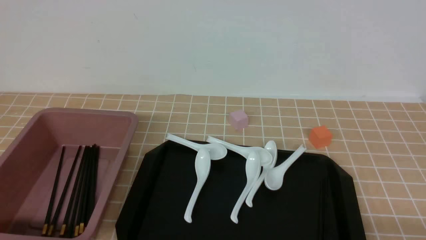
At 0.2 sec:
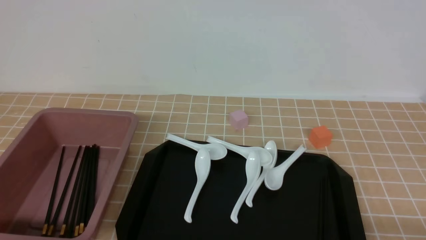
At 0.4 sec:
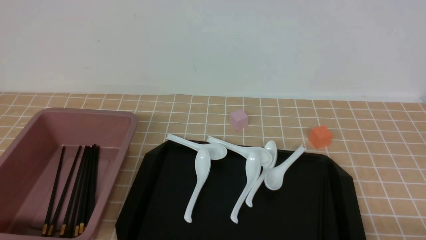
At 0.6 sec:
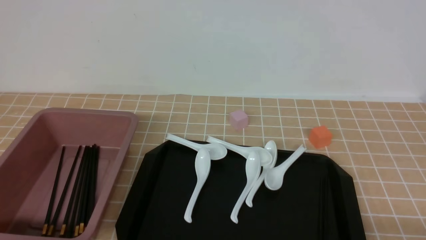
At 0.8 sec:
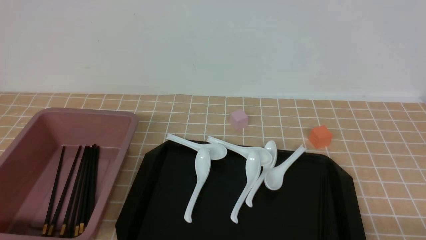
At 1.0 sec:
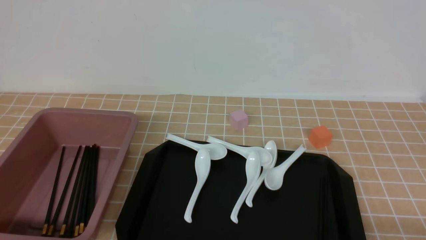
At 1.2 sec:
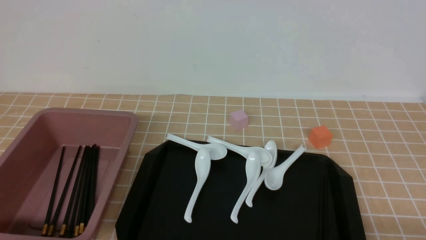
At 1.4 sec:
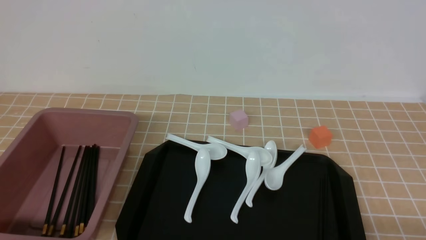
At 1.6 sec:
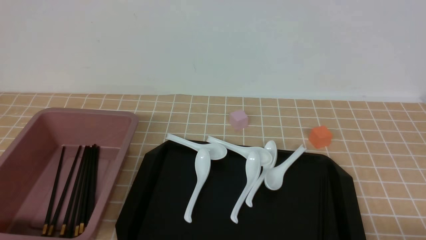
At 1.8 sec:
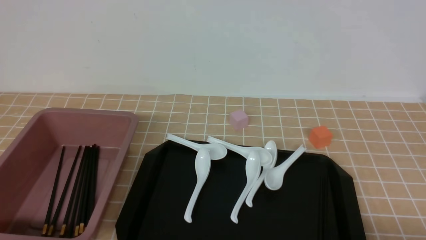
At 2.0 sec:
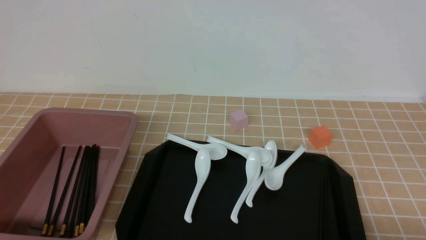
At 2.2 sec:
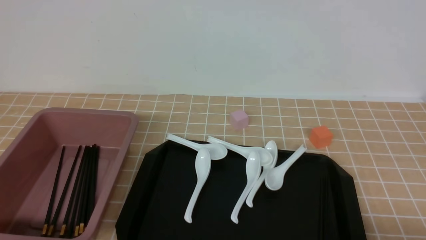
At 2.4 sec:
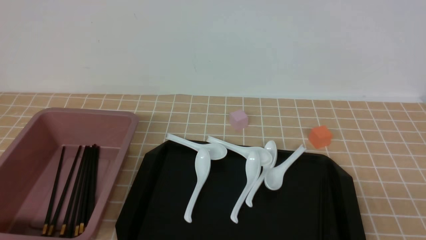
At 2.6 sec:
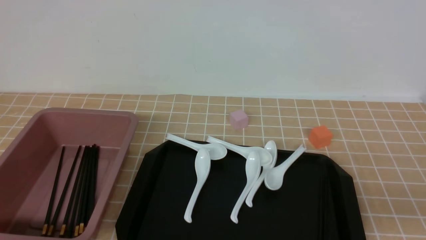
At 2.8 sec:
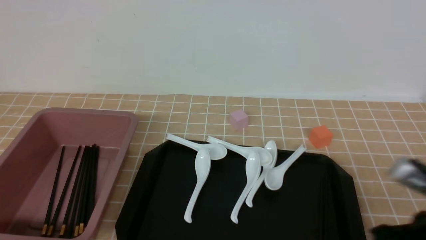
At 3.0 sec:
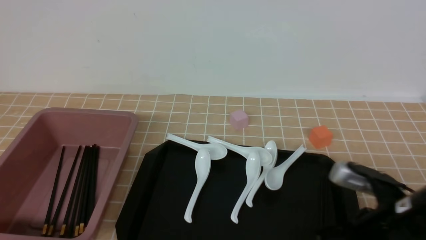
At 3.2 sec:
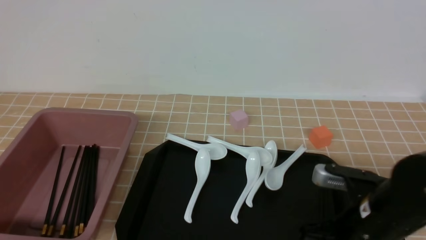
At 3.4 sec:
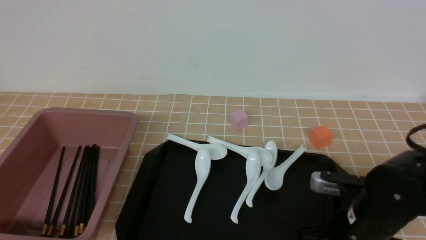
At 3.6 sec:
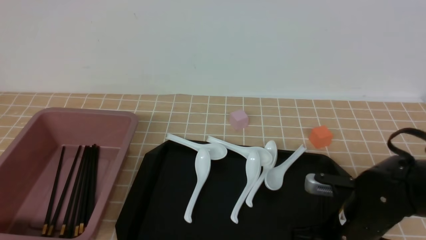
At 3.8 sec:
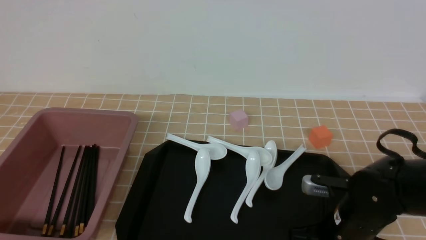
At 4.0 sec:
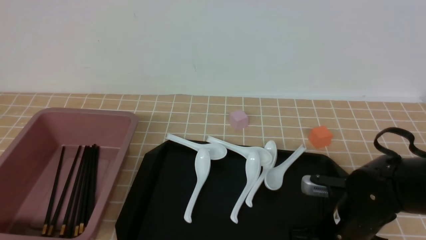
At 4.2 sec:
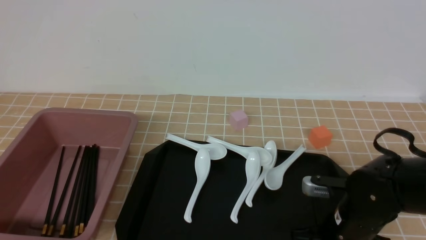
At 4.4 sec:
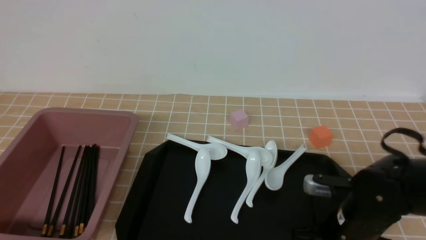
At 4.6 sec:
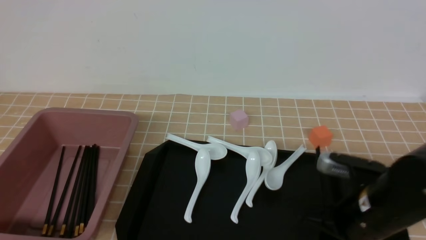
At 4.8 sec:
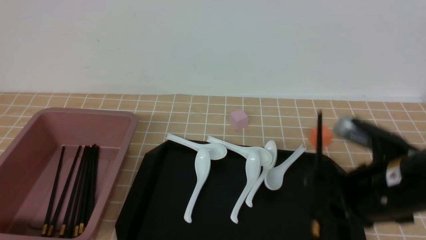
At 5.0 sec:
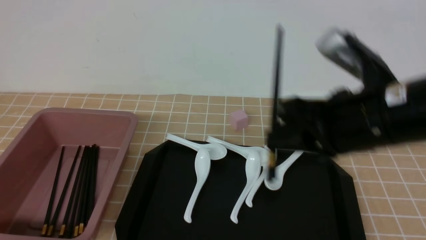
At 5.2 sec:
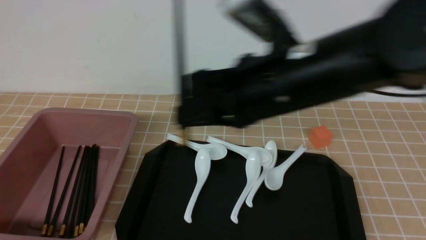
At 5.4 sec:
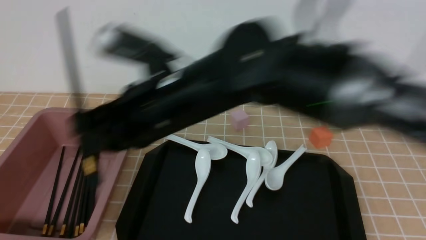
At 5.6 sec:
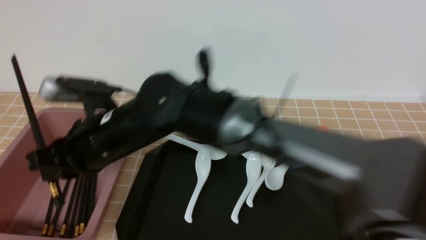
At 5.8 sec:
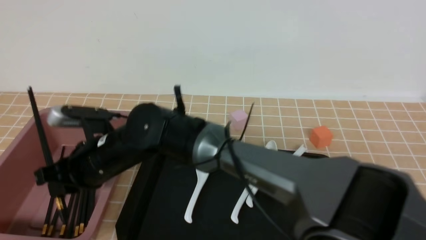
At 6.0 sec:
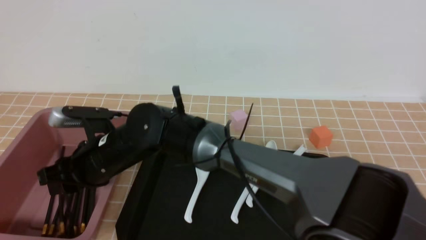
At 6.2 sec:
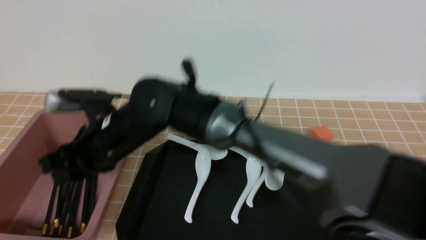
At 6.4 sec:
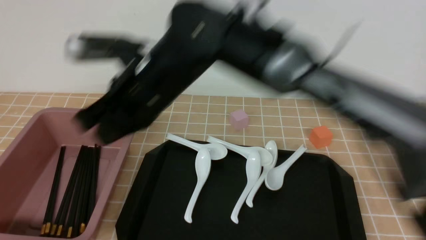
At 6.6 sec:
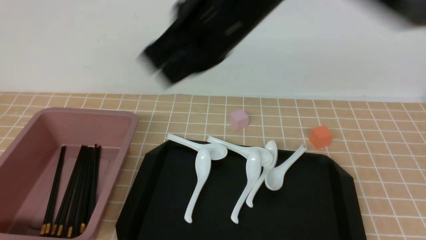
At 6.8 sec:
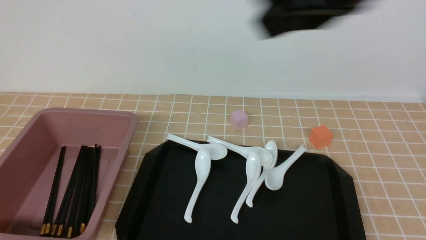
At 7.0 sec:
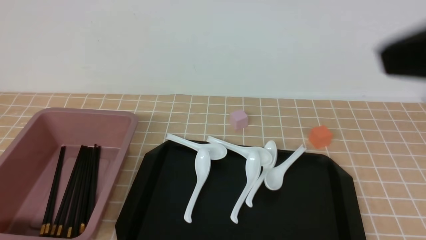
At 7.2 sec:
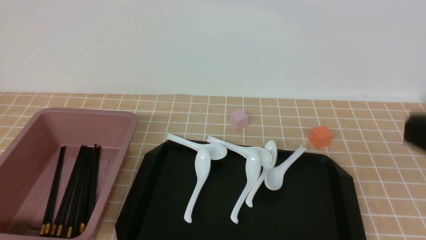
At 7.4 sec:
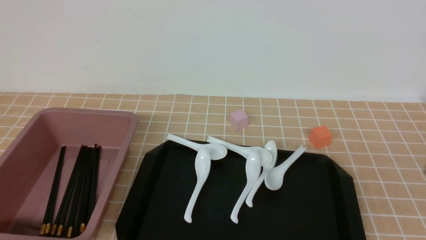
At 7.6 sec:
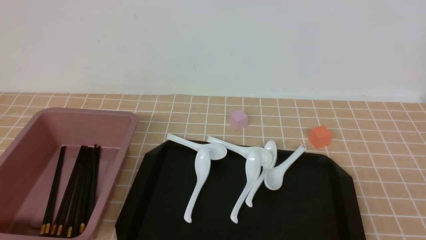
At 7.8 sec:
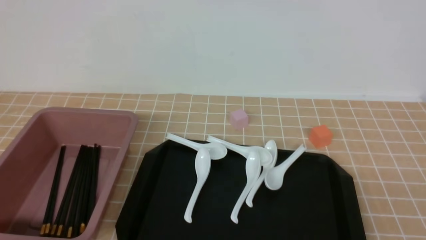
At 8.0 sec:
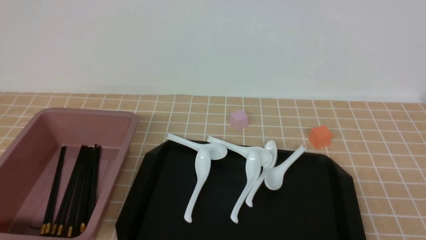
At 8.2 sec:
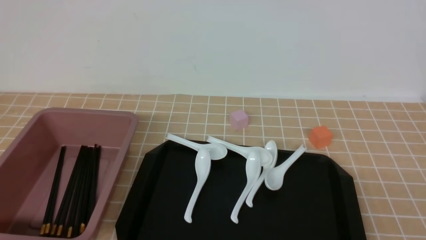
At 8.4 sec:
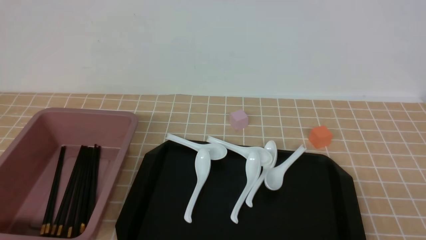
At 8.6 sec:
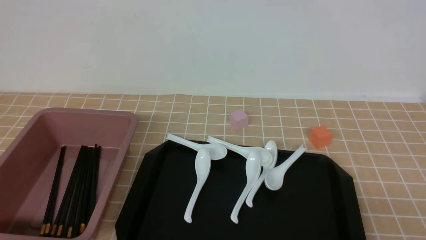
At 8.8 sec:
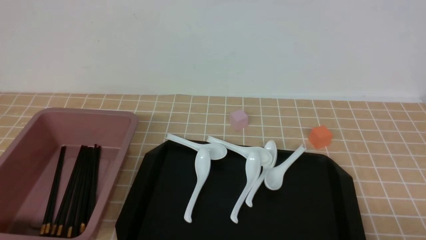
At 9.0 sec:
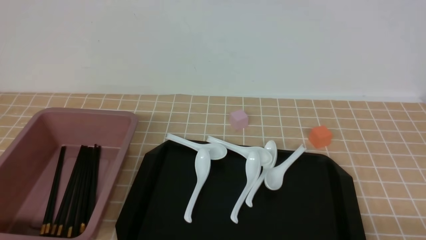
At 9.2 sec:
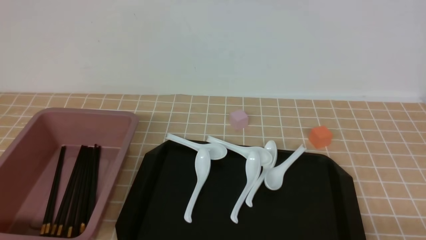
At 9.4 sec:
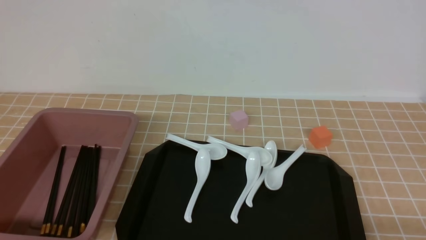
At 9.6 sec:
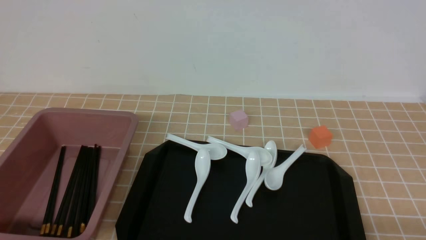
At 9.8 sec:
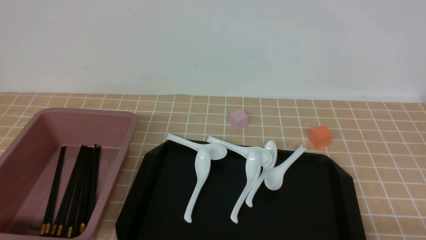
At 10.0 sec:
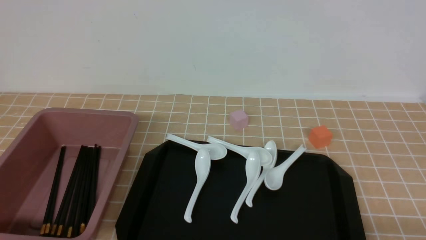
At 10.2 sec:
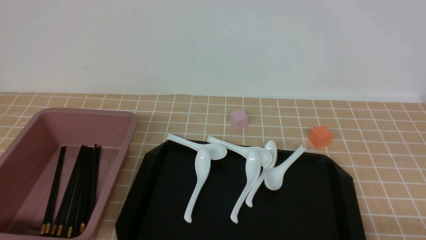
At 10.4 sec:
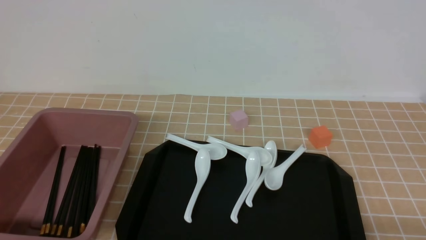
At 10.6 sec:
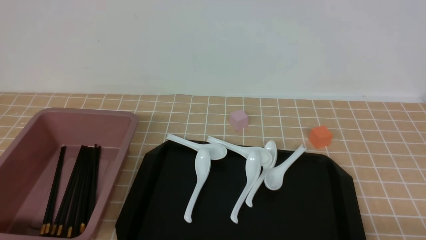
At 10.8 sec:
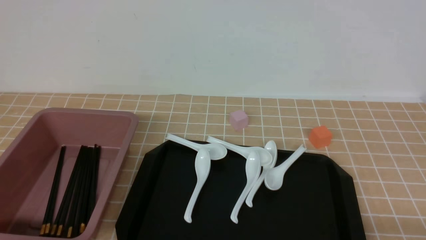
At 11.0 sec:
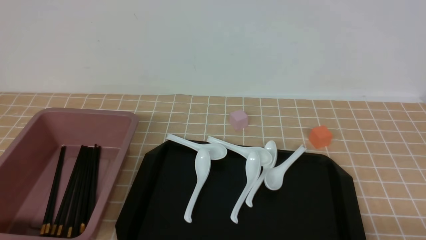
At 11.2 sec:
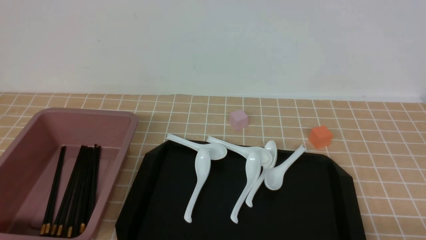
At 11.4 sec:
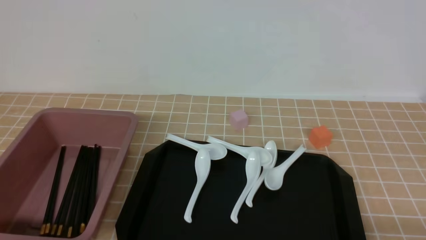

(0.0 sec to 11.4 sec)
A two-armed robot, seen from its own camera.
Step, 0.0 sec - 4.6 sec: use the right arm to grab a pair of chopsticks.
Step, 4.8 sec - 6.2 sec: use the right arm to put the chopsticks into the lunch box.
0.0 sec - 1.4 sec: Both grippers stay put.
1.4 sec - 2.8 sec: The right gripper is displaced forward, upward and to the left by about 15 cm, and closes up.
2.8 sec - 4.2 sec: The right gripper shifts approximately 15 cm downward, forward and to the left, and opens its fingers.
4.2 sec - 5.6 sec: The right gripper is displaced to the left and upward by about 30 cm.
5.6 sec - 7.2 sec: The right gripper travels to the right and backward by roughly 40 cm, and closes.
7.2 sec - 8.6 sec: The right gripper shifts approximately 15 cm downward.
10.0 sec - 11.4 sec: Neither gripper changes place.
